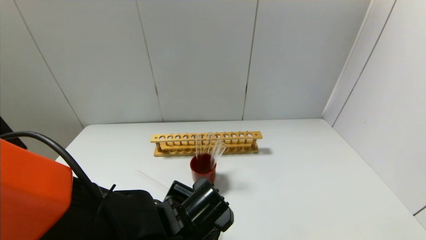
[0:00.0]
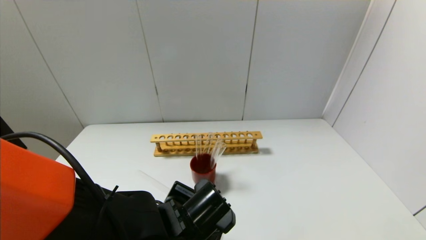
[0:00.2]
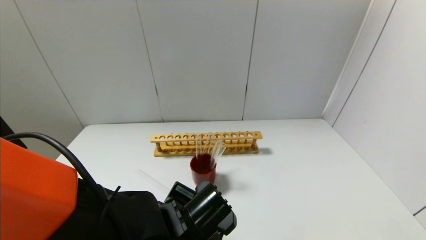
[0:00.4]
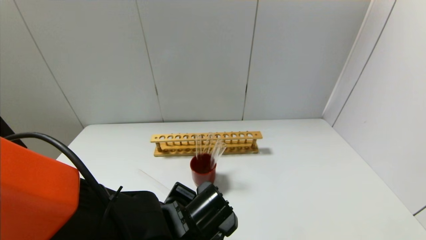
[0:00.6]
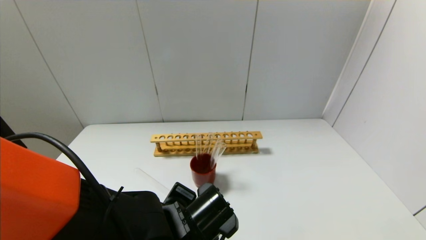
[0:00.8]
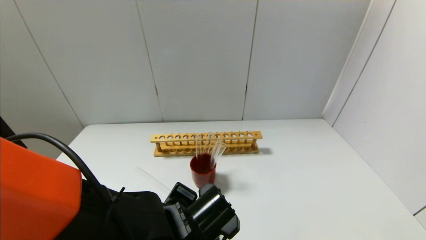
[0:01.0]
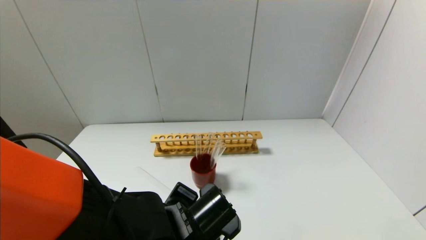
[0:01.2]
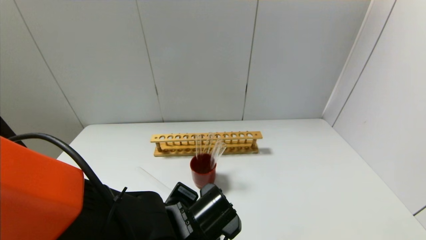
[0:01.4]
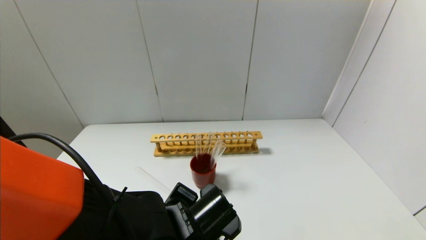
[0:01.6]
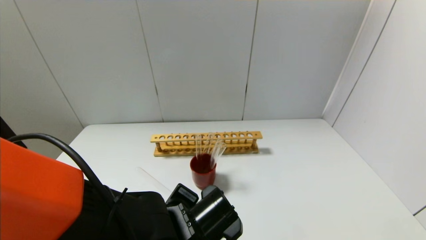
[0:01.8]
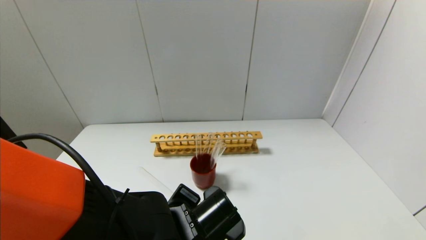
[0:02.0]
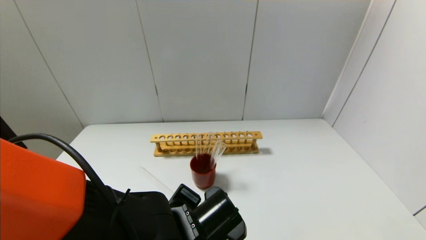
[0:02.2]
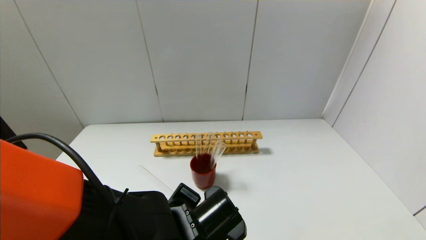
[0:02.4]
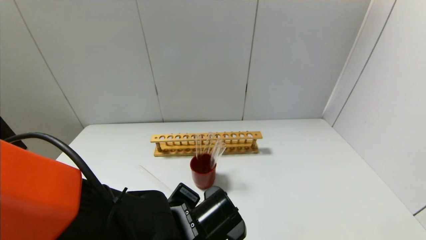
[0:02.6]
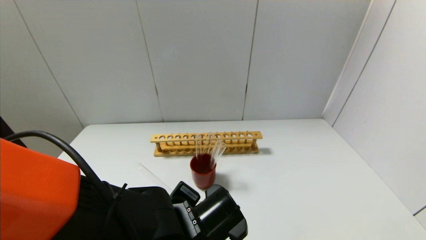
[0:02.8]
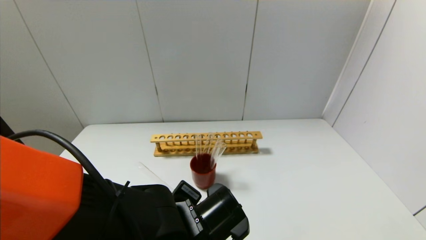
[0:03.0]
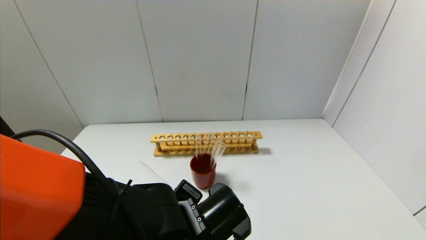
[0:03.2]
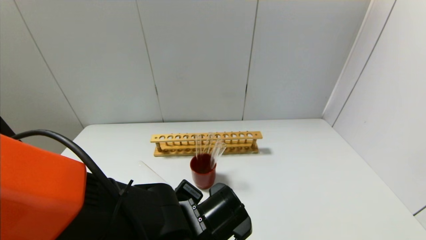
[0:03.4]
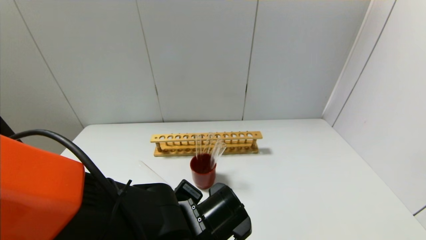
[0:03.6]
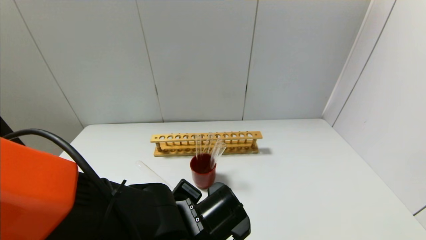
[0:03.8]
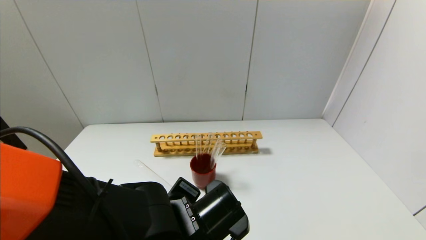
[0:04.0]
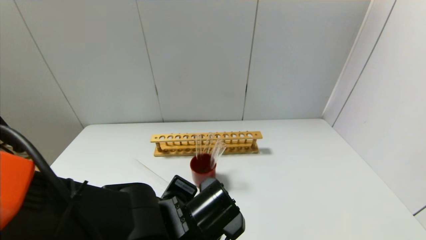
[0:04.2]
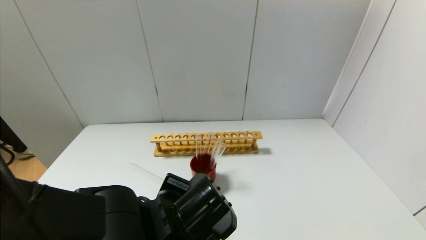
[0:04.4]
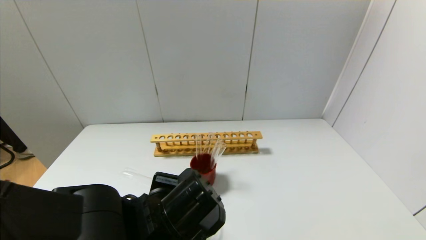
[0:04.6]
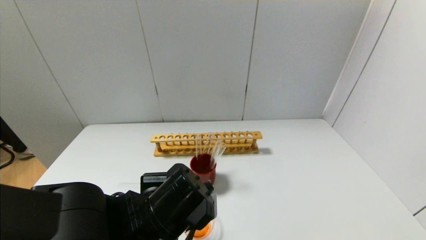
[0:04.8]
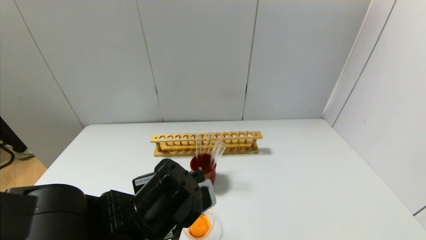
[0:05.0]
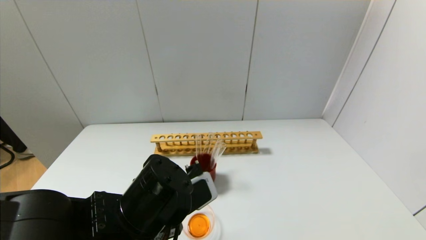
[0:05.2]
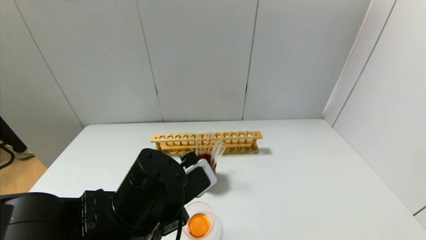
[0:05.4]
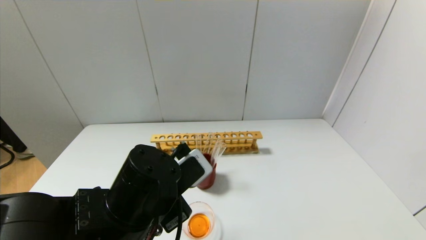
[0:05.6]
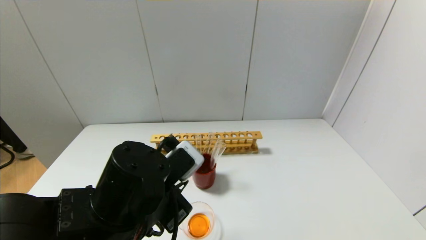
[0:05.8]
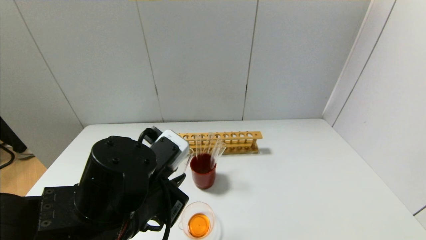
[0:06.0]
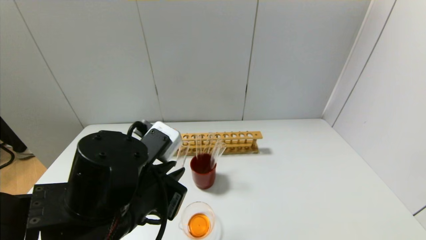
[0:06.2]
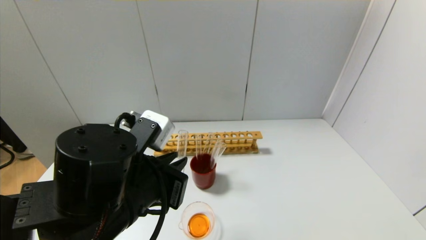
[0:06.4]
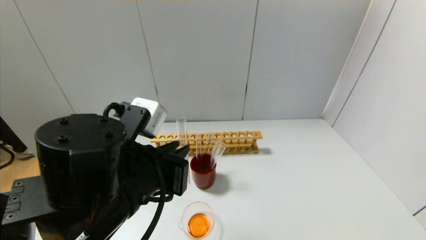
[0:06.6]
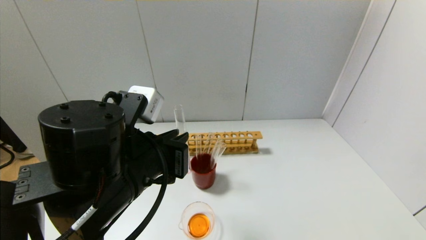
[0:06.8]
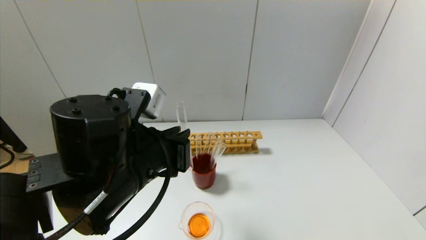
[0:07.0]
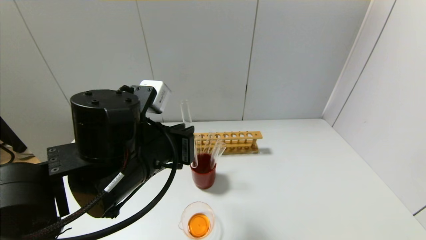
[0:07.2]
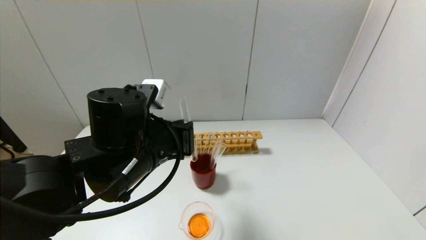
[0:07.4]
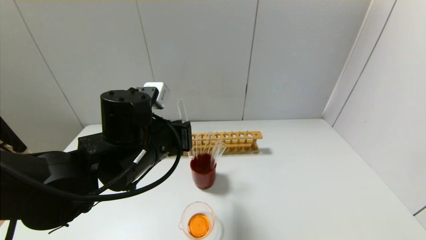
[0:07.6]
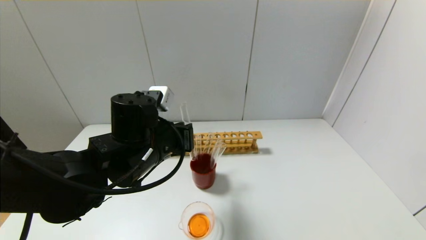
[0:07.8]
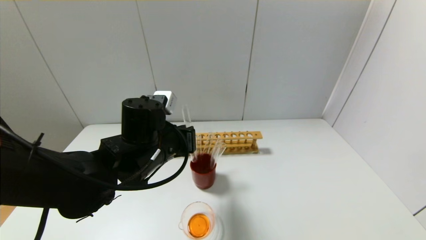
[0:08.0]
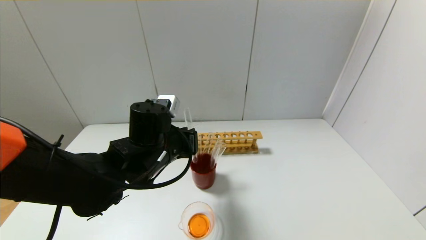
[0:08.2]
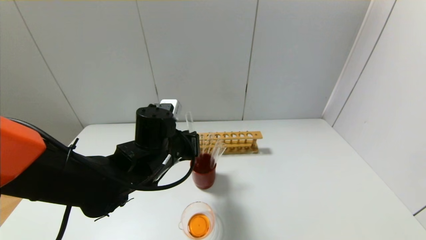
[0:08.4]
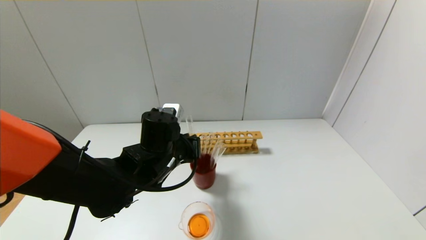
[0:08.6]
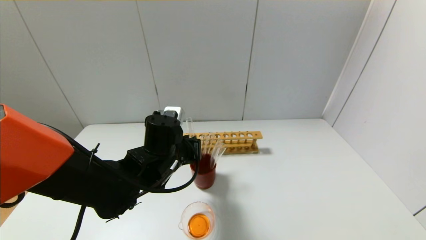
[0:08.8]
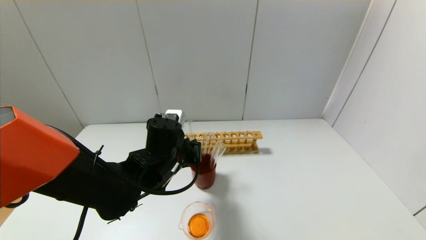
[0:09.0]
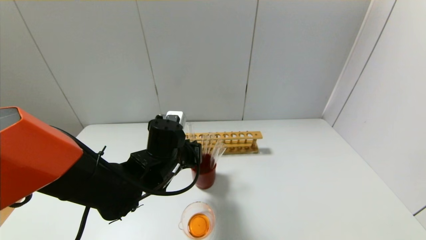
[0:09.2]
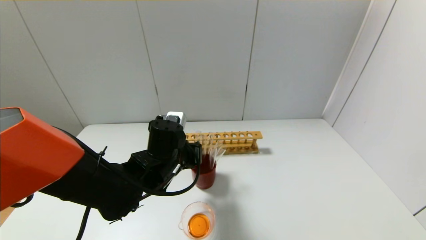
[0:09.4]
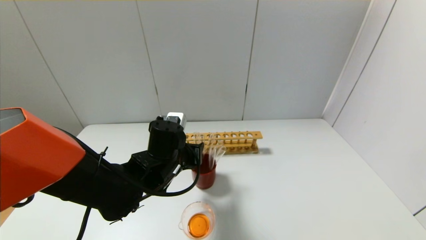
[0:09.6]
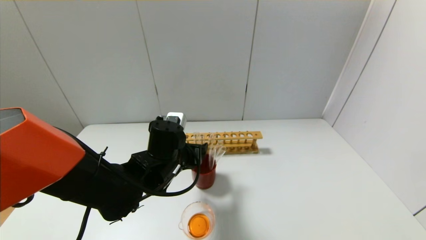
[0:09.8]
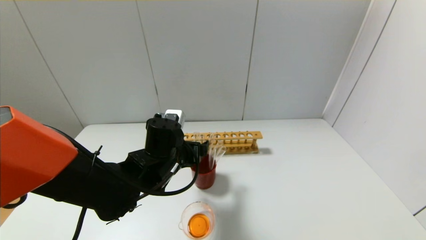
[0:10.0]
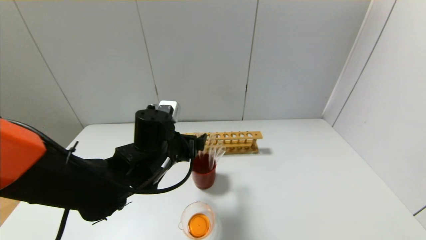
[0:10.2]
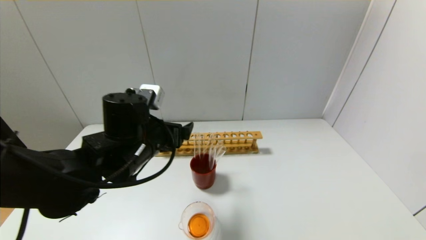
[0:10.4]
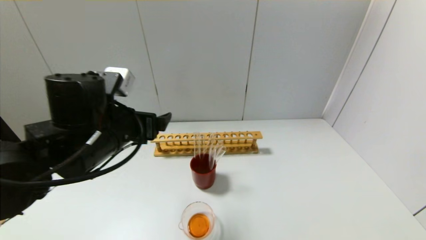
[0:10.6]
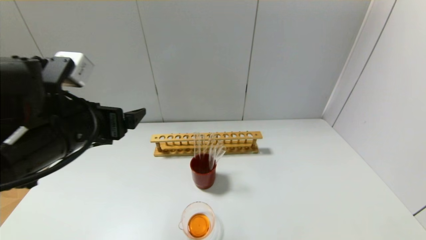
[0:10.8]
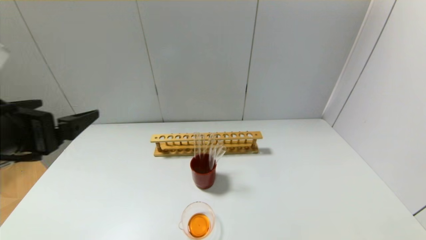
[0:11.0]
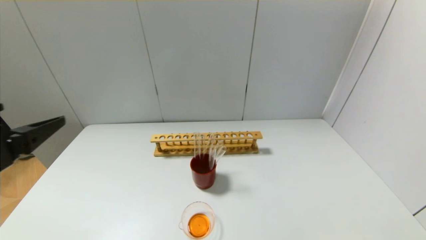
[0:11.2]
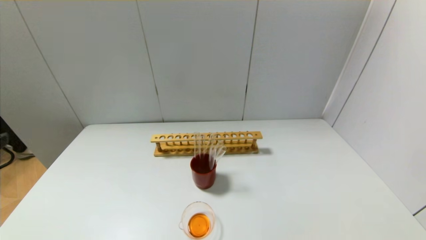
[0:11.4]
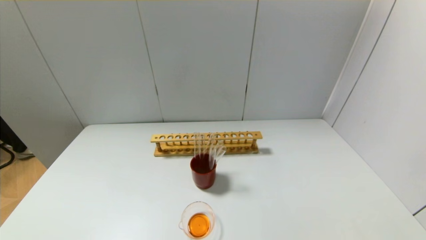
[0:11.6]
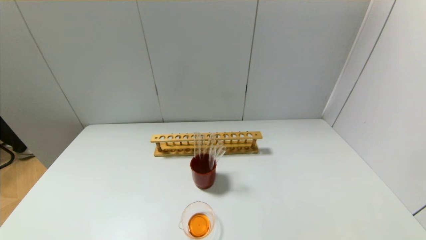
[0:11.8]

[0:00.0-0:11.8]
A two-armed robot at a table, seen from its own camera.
Step, 0:00.0 to 0:04.4: Pour the red reagent into the graduated cylinder with the left gripper.
Step, 0:04.6 to 0:09.6: Place the test tube into the brown cup with the left gripper.
0:00.0 to 0:01.4: There are only small adjustments of the grippers.
0:01.4 to 0:03.0: Both grippers stay put.
0:03.0 to 0:04.4: The grippers move only a little.
0:04.4 to 0:06.0: The left gripper shifts some 5 cm upward.
0:06.0 to 0:07.4: The left gripper heads forward, covering about 5 cm.
0:07.4 to 0:08.8: The left gripper goes about 10 cm downward and forward.
0:08.8 to 0:10.4: The left gripper travels upward by roughly 5 cm, and opens its fingers.
0:10.4 to 0:11.8: The left gripper goes about 35 cm backward and to the left.

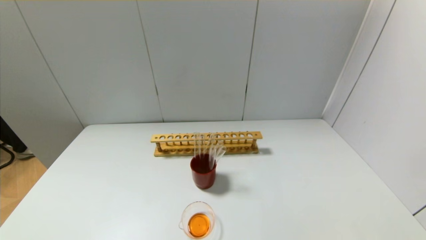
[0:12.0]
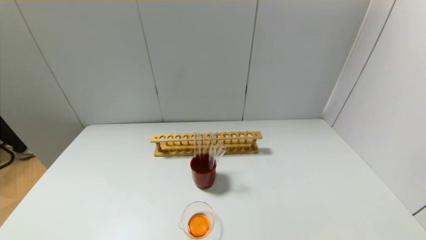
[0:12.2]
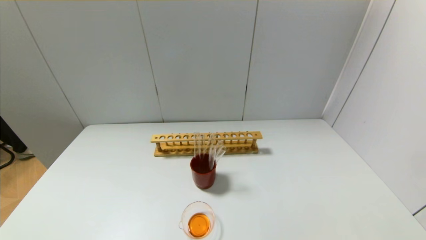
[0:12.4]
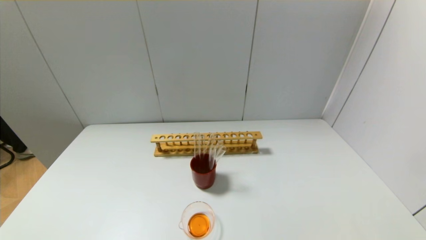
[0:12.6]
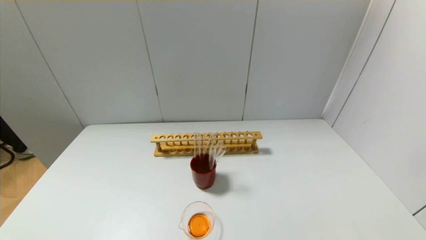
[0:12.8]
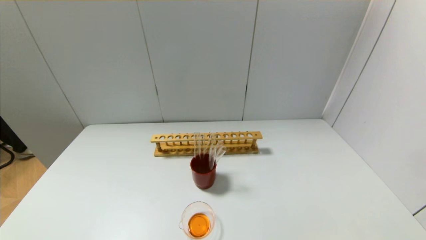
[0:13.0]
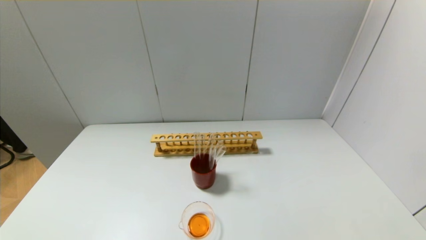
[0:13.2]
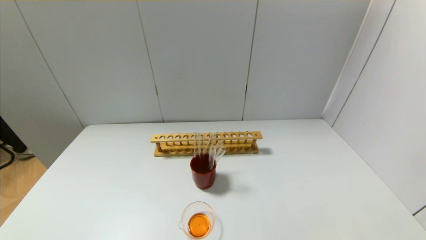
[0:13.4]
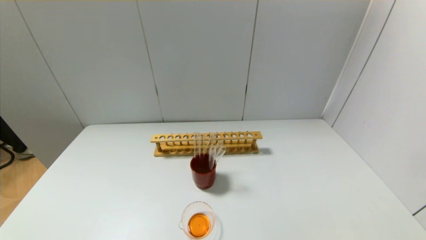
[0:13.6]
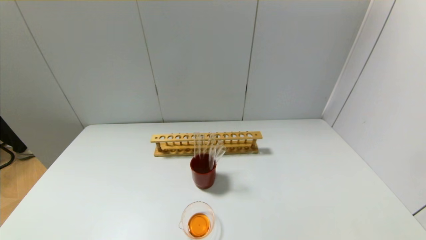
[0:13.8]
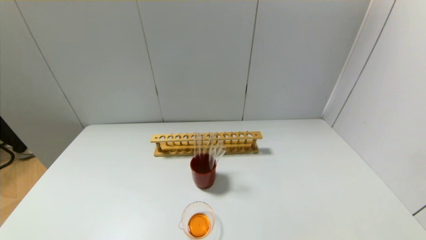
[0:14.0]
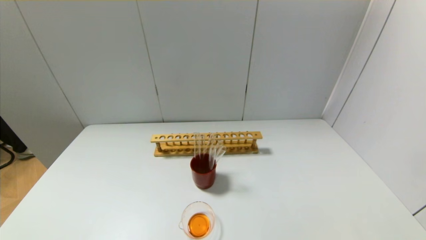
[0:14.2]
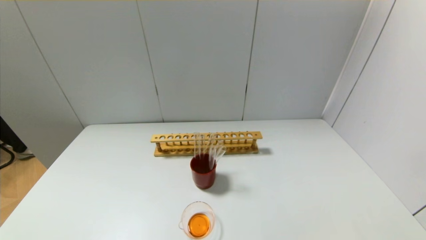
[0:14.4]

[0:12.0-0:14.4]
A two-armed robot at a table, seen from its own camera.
0:13.2 to 0:14.4: The two grippers keep their place.
